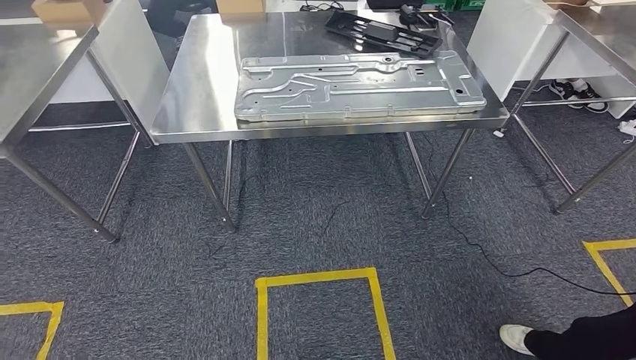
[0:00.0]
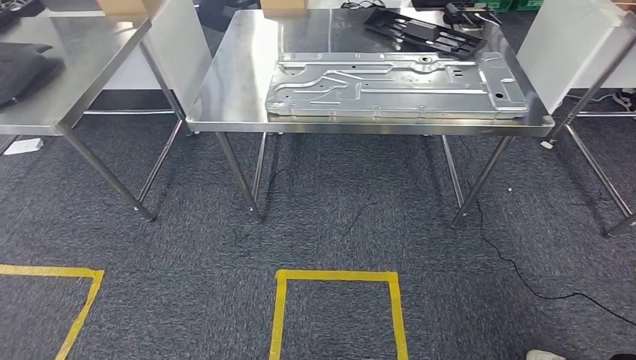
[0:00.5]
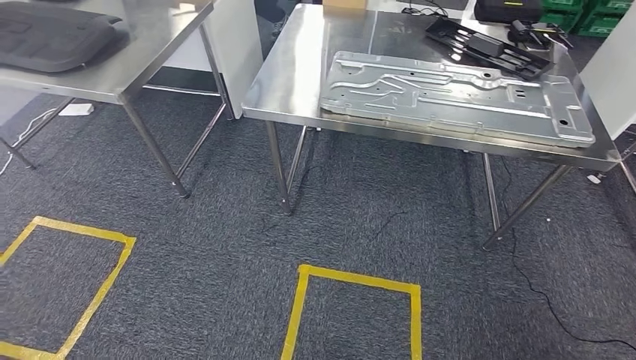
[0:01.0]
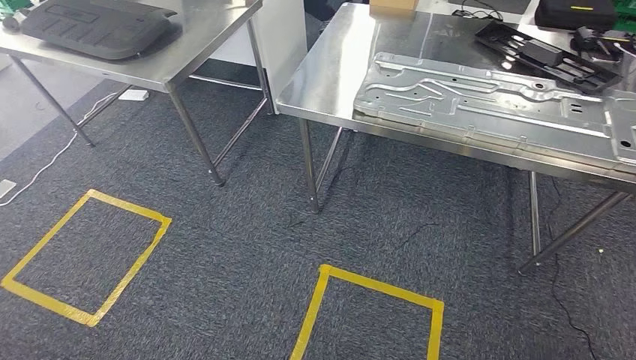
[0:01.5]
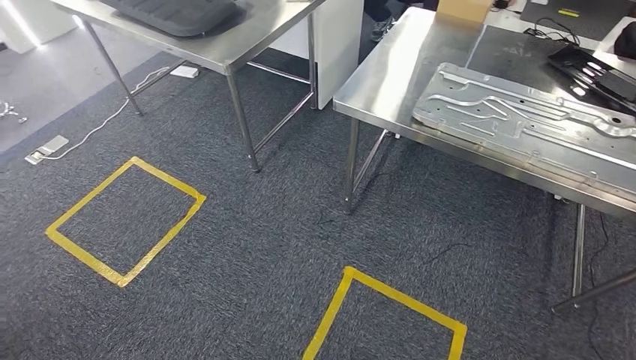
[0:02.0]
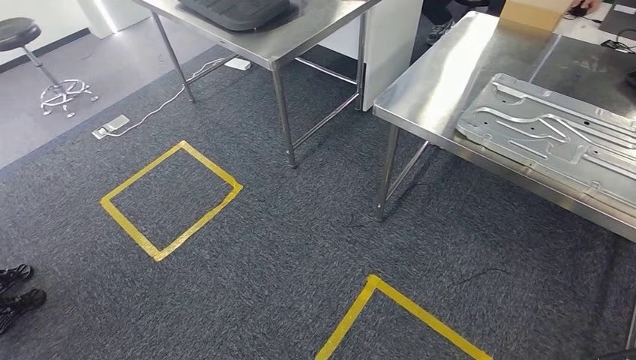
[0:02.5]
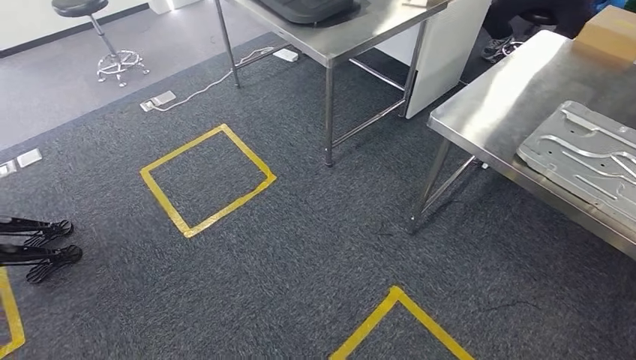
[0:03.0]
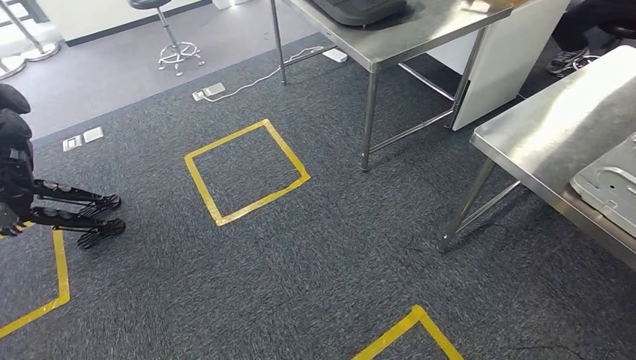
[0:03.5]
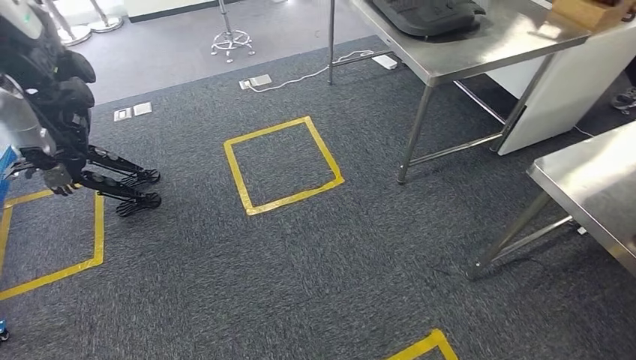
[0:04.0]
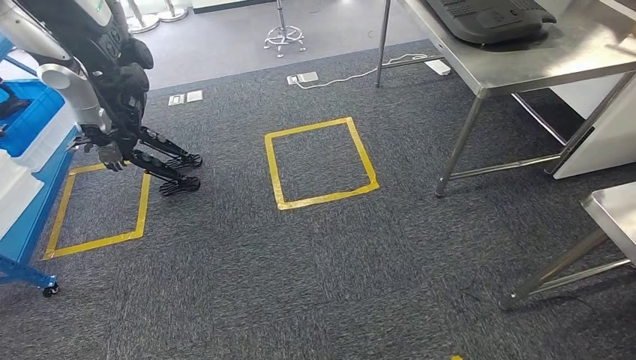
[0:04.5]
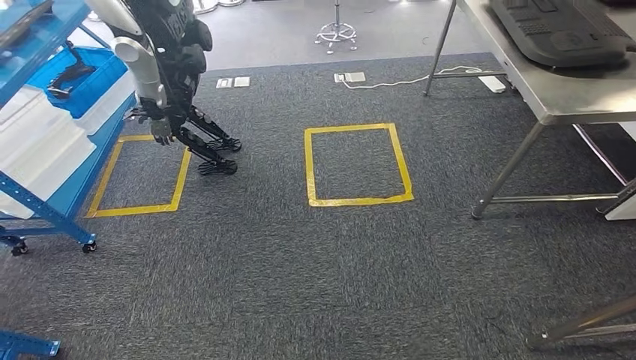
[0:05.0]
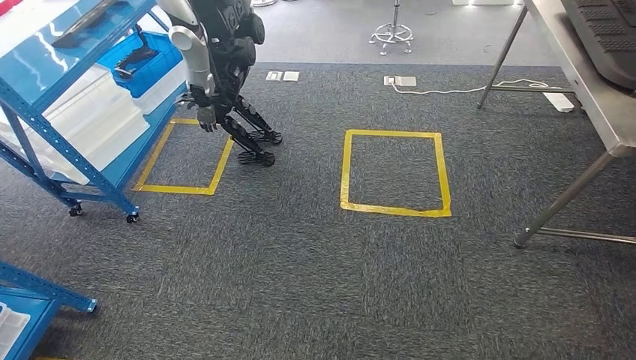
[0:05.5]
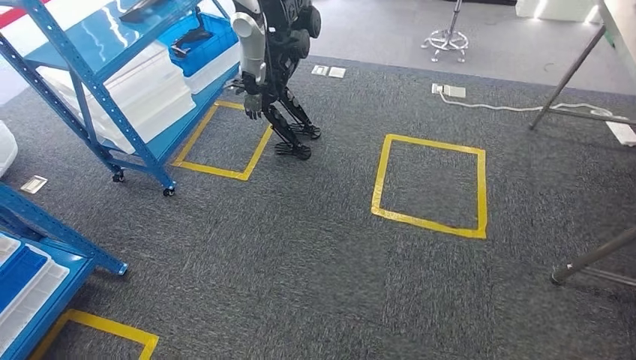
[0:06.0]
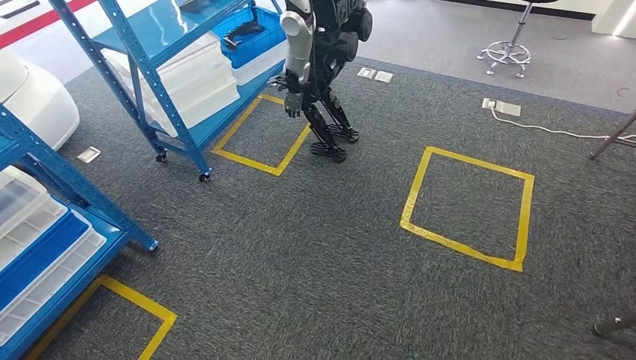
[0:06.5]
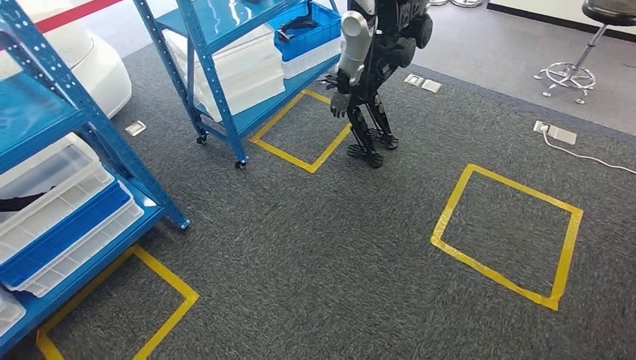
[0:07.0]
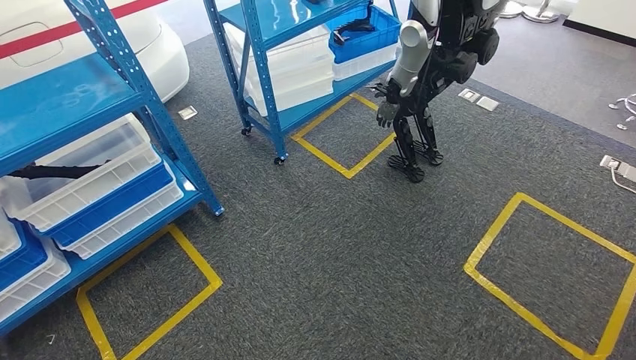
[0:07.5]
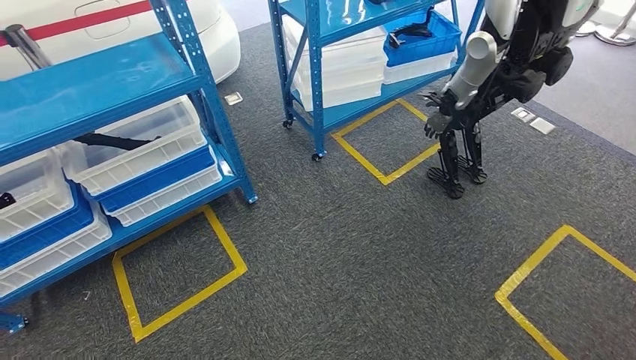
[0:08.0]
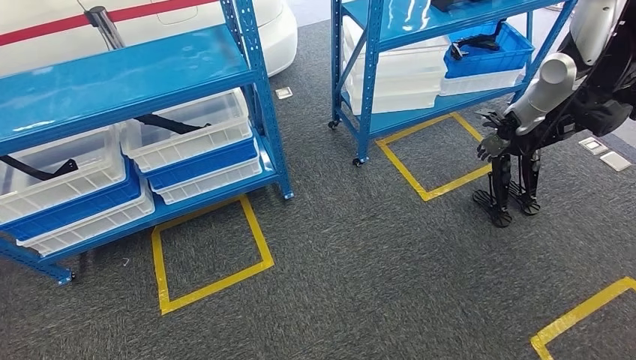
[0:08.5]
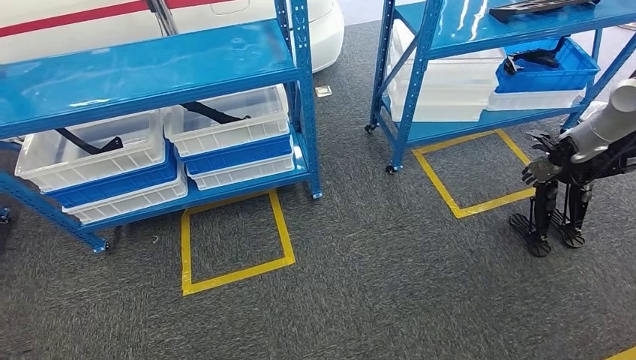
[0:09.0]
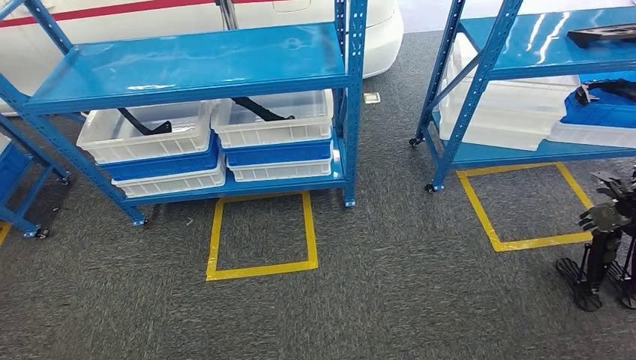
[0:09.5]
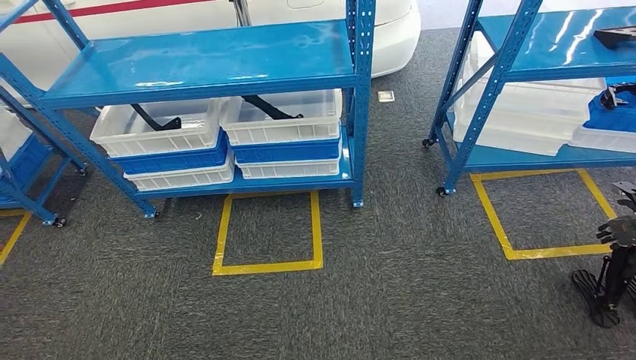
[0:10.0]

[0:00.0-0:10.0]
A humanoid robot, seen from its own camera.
Step, 0:00.0 to 0:10.0: Return to the initial position at the shelf.
